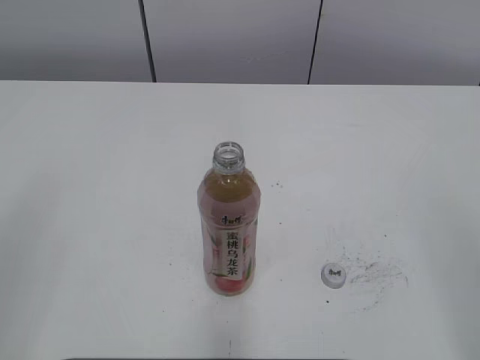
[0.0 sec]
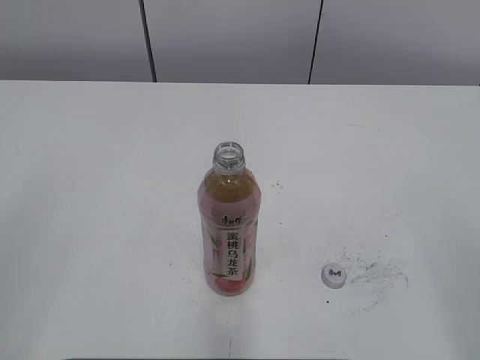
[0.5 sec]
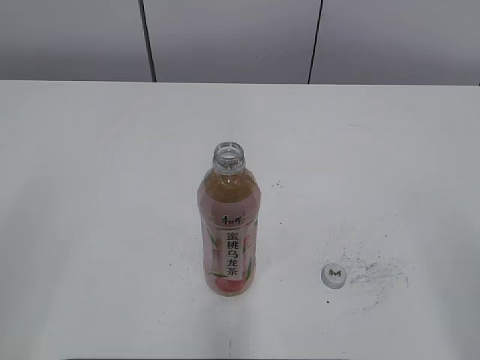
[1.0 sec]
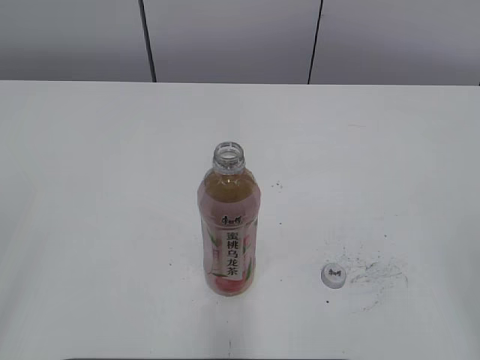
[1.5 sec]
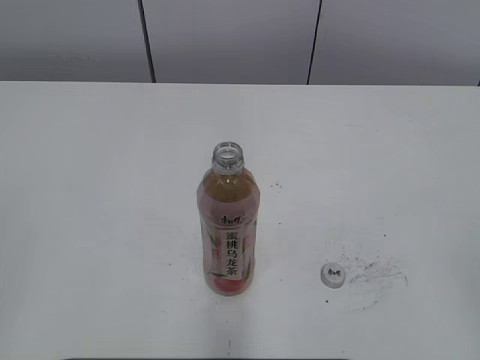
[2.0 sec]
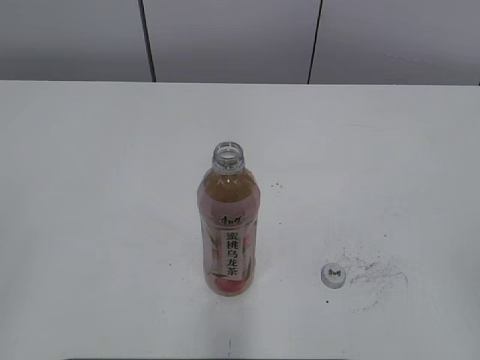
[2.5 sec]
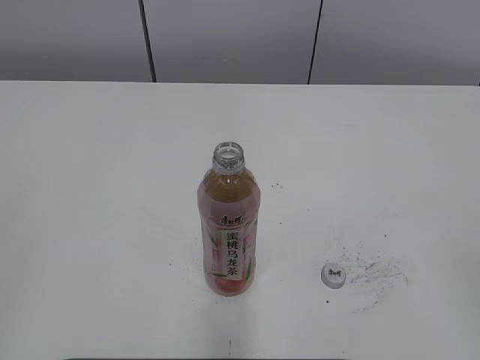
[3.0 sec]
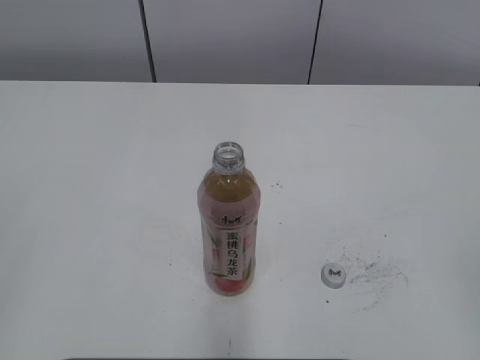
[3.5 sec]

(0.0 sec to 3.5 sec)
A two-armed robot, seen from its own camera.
2.0 sec - 3.5 sec: Both grippers stay about where they are.
